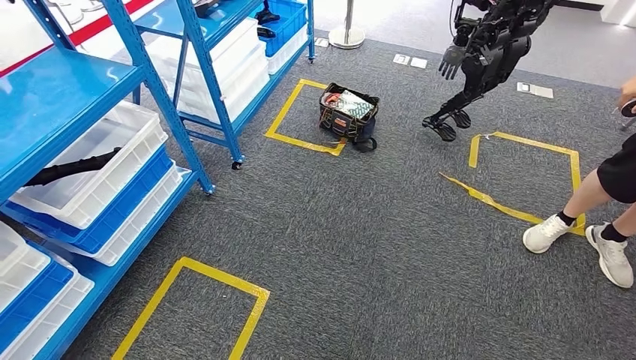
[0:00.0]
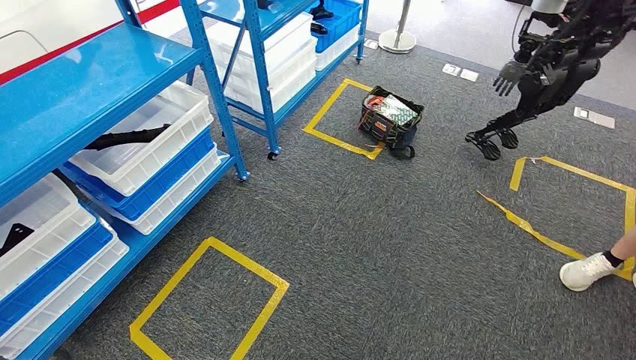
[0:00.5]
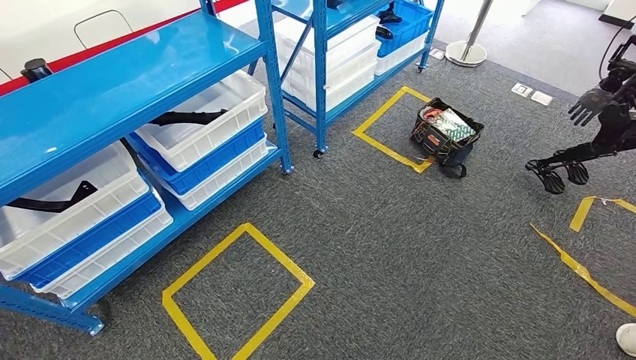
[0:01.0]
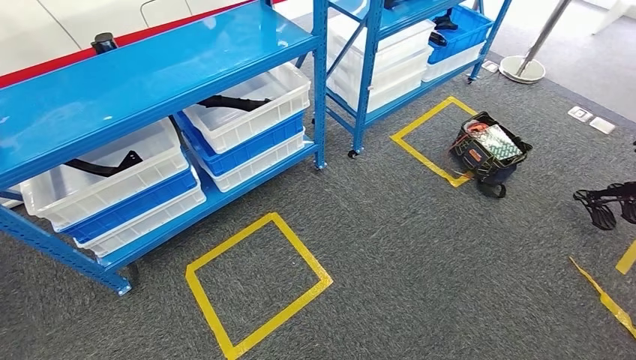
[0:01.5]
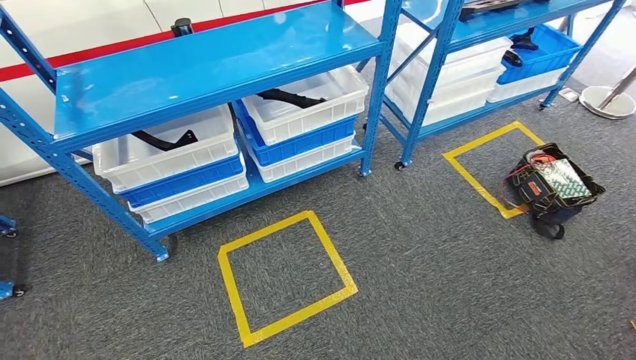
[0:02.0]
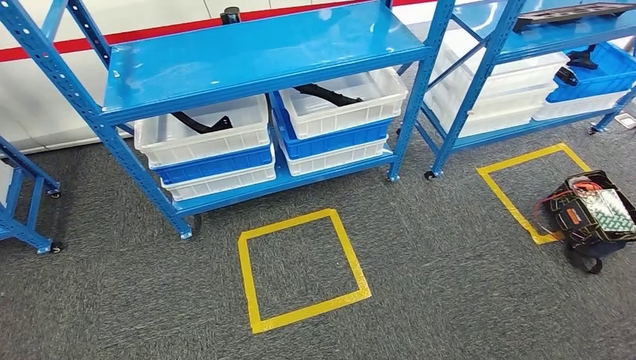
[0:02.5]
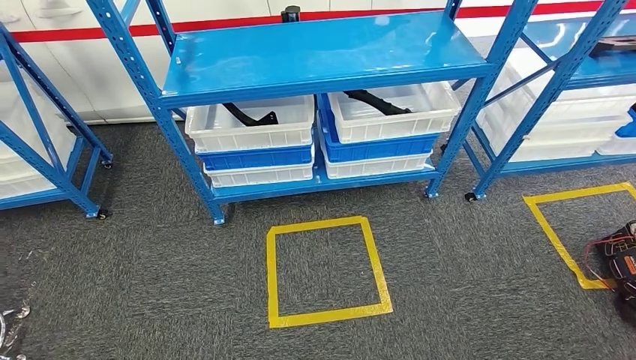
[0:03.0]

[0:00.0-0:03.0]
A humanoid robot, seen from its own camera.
Step, 0:00.0 to 0:03.0: Move to the initial position of the shelf.
